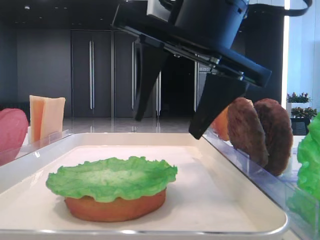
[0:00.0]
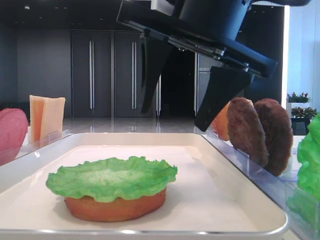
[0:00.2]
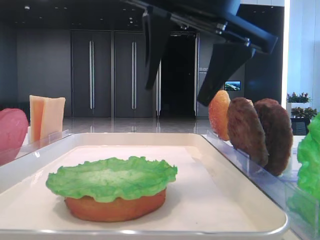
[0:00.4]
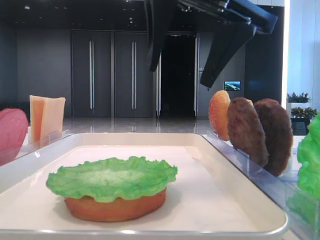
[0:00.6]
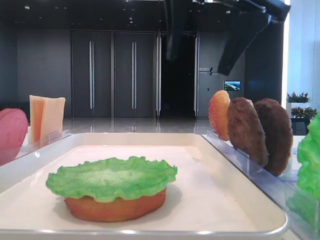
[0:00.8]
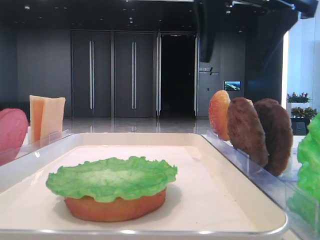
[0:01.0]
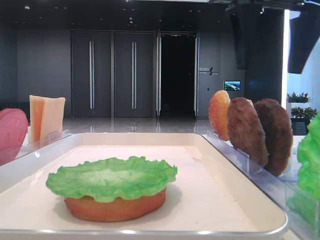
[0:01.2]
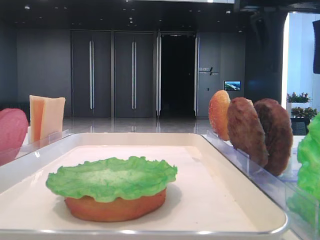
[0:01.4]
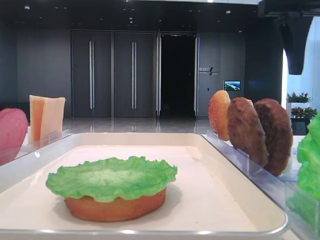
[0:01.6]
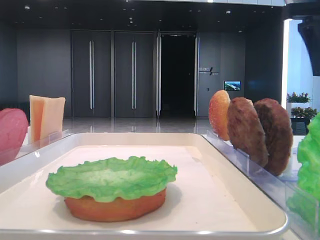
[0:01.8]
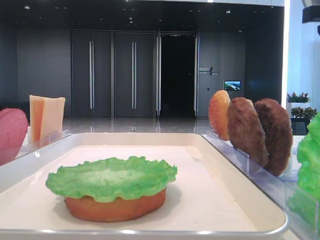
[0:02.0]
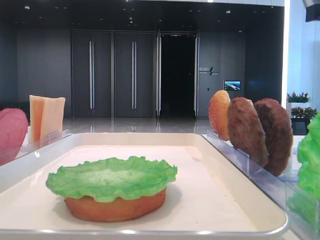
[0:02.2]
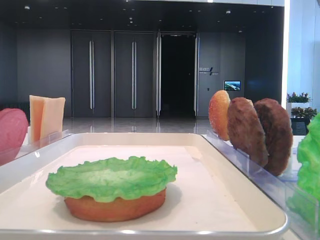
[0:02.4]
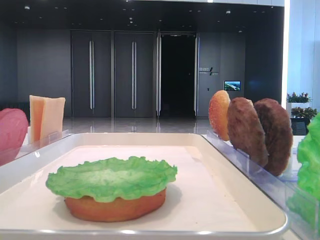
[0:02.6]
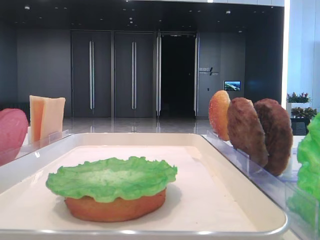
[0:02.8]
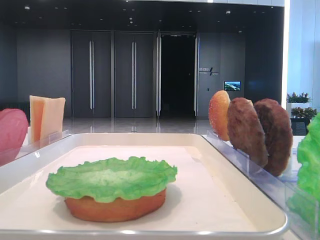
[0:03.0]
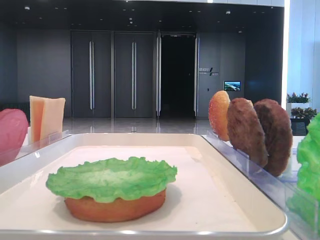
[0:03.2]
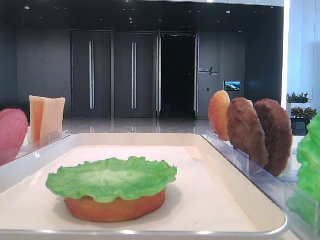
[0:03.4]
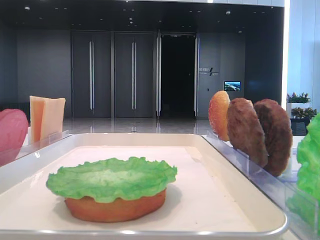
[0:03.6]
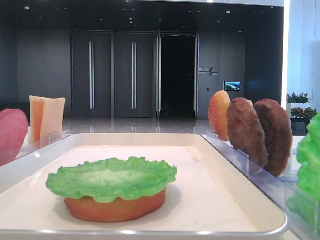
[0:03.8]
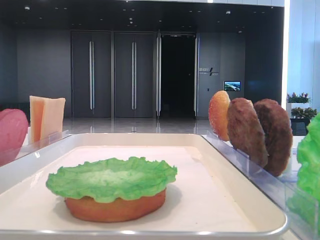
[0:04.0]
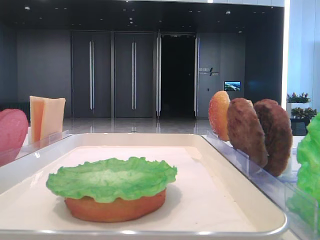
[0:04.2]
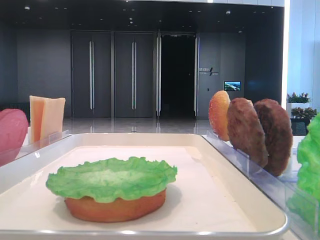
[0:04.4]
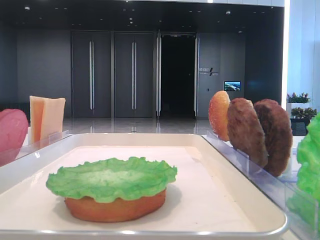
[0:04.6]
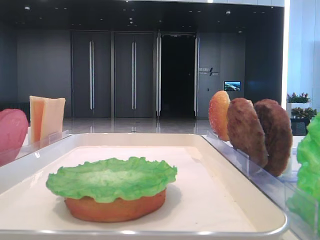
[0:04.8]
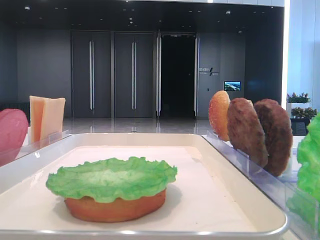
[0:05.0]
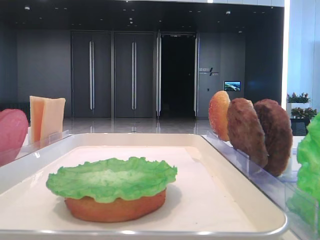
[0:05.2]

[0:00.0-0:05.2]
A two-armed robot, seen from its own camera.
0:00.0 to 0:01.8: The right gripper shifts some 20 cm to the right and forward.
0:01.8 to 0:03.4: The right gripper moves backward, some 25 cm.

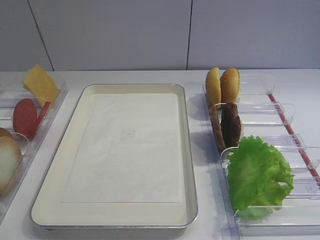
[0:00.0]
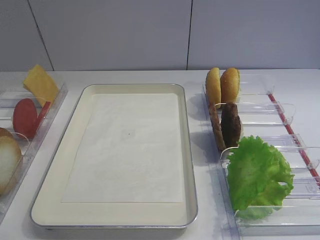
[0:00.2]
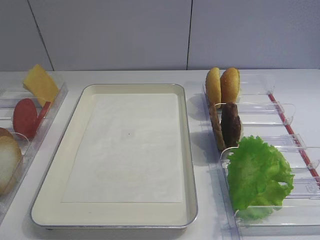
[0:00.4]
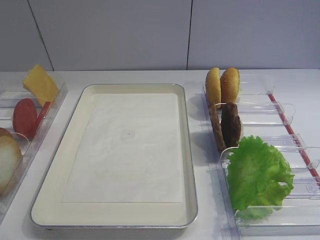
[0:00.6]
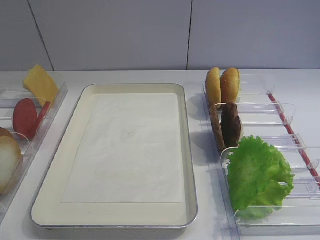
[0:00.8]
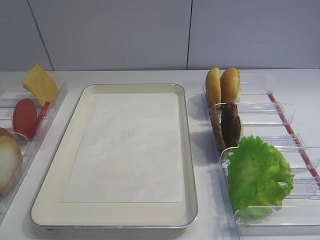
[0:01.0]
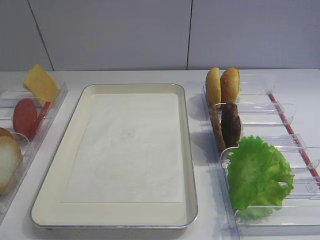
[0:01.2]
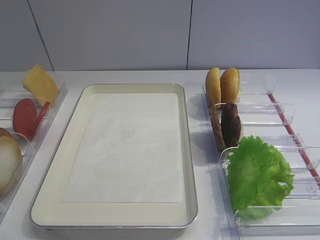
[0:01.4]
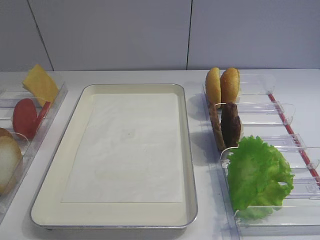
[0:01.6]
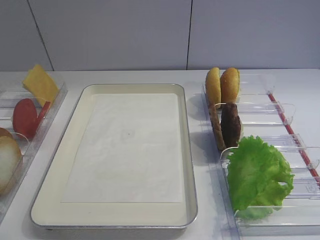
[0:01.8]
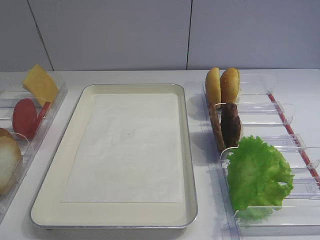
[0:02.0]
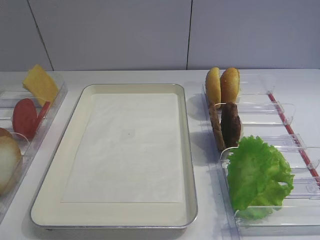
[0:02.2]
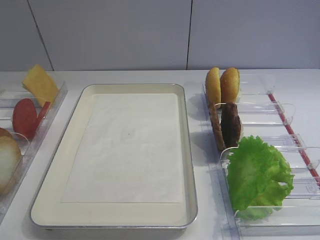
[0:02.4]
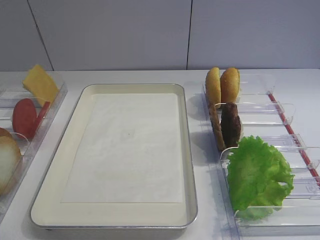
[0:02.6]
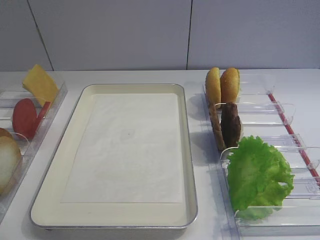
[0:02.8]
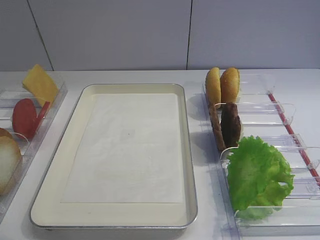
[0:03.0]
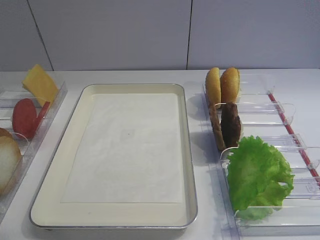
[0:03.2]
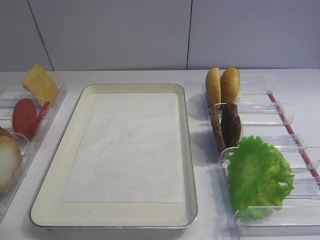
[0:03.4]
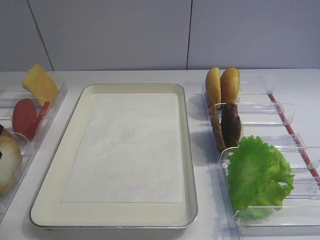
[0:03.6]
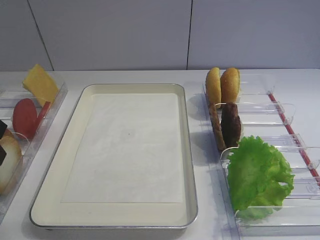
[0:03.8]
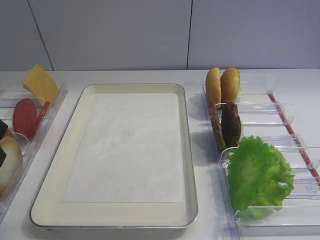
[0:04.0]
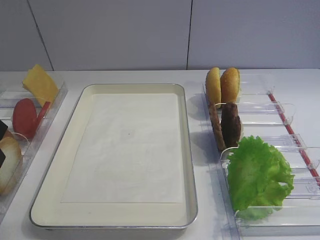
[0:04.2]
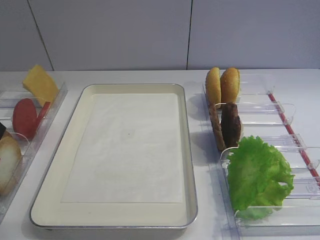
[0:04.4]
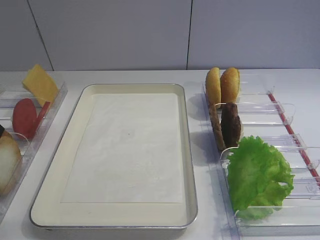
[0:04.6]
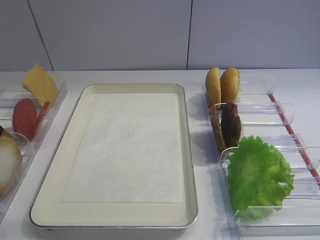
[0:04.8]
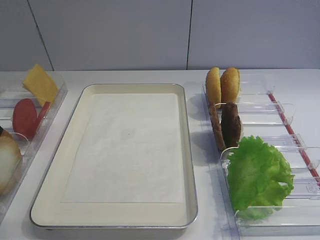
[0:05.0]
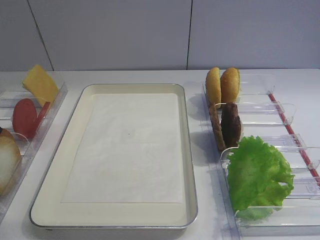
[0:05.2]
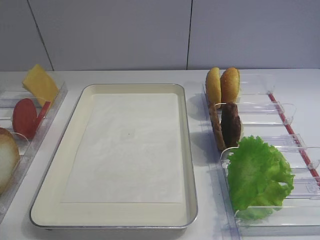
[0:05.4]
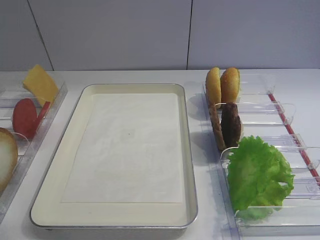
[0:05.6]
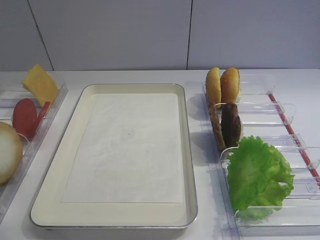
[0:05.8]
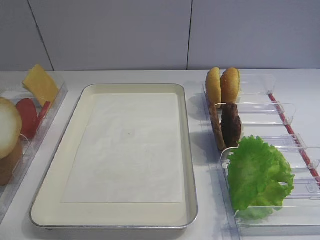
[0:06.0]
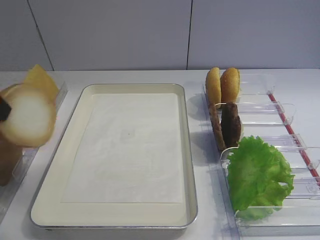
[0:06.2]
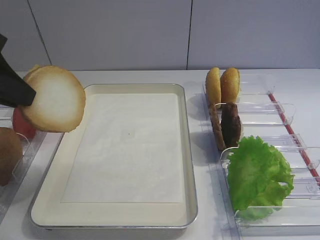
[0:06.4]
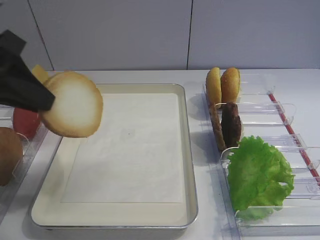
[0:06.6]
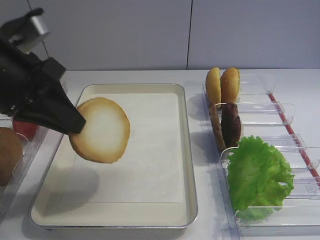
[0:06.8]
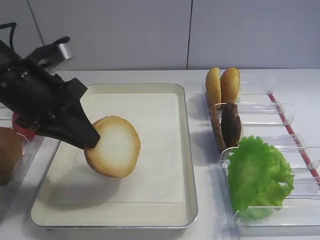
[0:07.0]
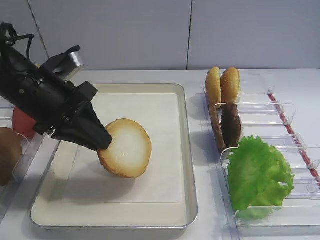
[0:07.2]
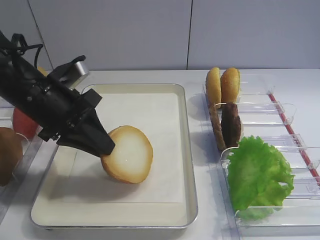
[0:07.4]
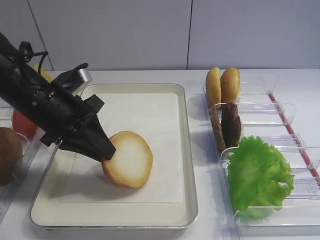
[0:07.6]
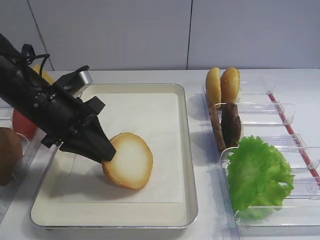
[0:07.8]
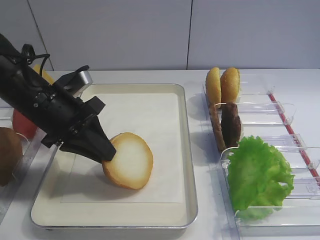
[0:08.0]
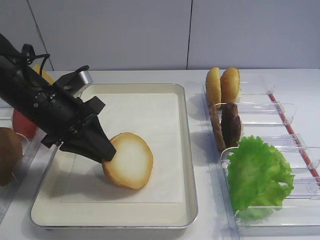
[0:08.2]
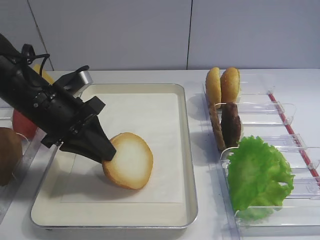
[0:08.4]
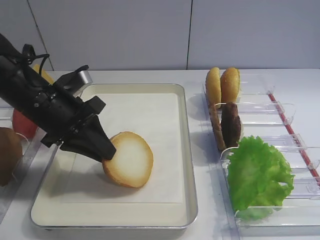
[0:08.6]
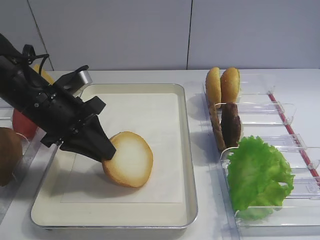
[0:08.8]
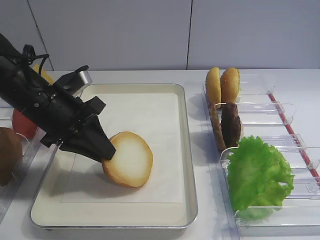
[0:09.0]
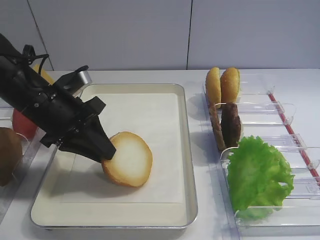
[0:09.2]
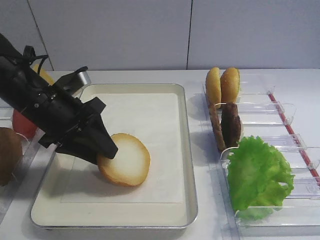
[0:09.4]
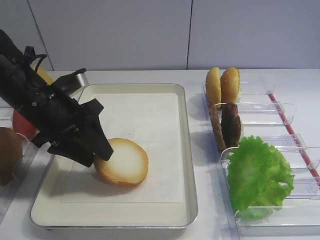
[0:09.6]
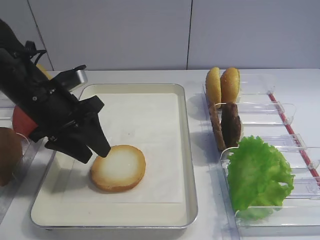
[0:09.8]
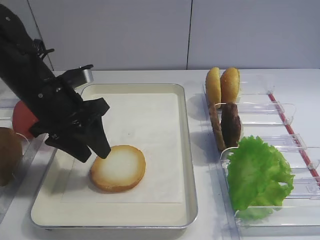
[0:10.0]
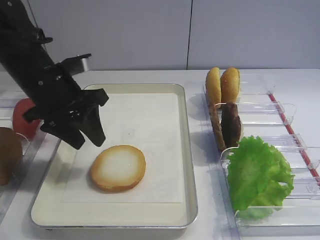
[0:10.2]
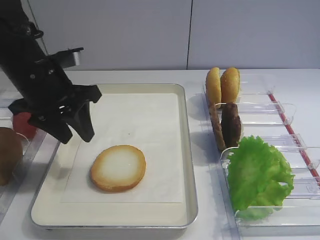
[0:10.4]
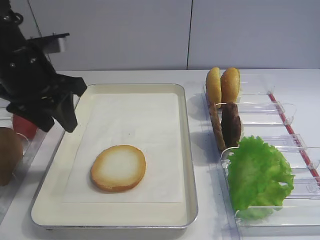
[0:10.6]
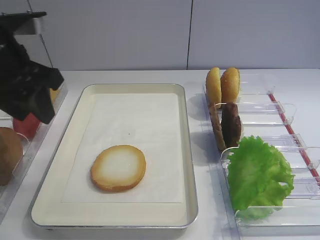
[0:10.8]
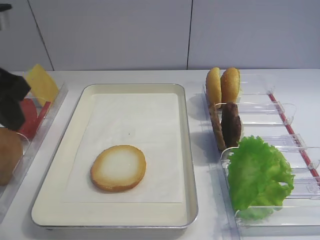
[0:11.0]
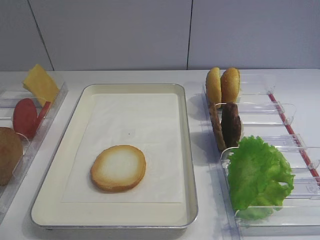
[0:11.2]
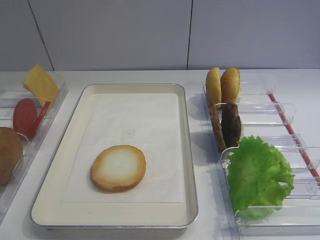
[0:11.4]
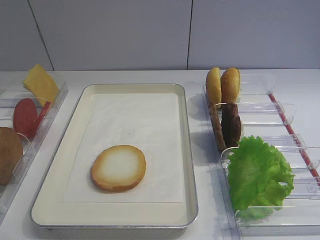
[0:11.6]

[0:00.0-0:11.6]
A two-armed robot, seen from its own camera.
Step, 0:00.0 to 0:06.0: Pick up the bread slice with the left gripper.
Step, 0:06.2 to 0:10.2: Place the bread slice on the tray with the left gripper.
0:04.4 to 0:05.8: The left gripper closes up.
0:05.8 to 0:07.2: The left gripper is displaced to the right, forward and downward by about 15 cm.
0:07.2 to 0:08.8: The grippers stay close to where they were, moving slightly.
0:08.8 to 0:10.2: The left gripper opens.
0:10.2 to 0:11.6: The left gripper shifts approximately 30 cm backward, upward and to the left.

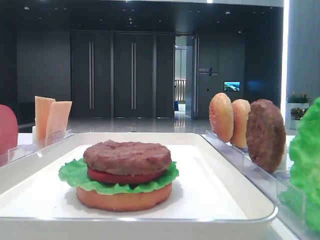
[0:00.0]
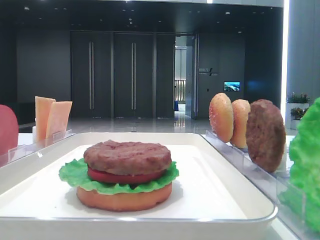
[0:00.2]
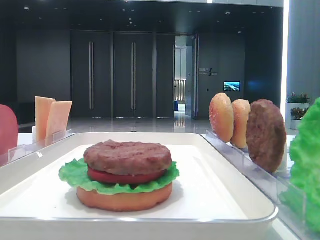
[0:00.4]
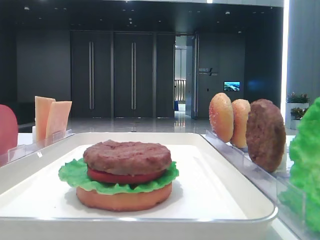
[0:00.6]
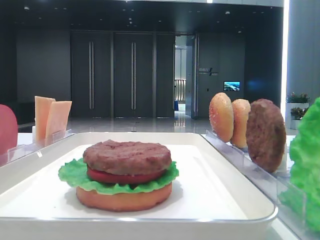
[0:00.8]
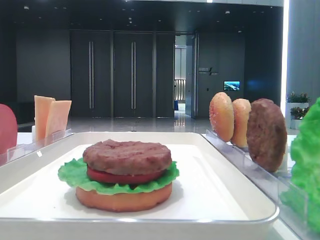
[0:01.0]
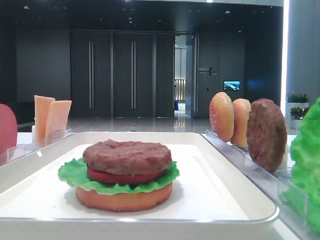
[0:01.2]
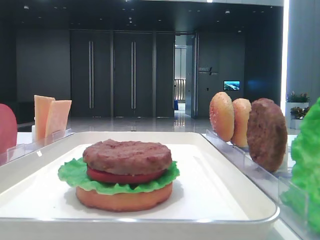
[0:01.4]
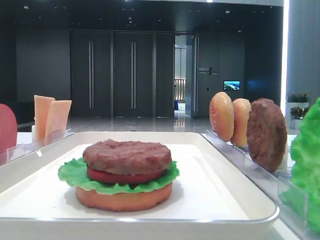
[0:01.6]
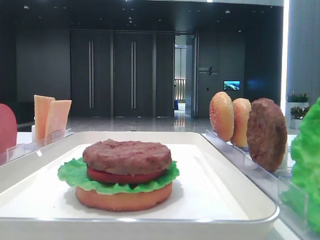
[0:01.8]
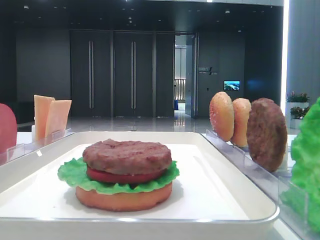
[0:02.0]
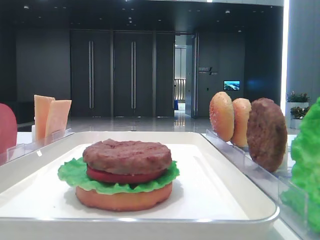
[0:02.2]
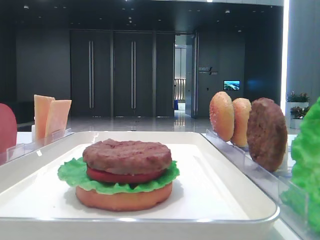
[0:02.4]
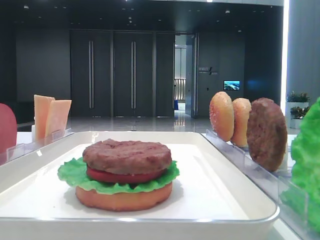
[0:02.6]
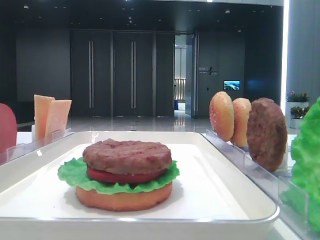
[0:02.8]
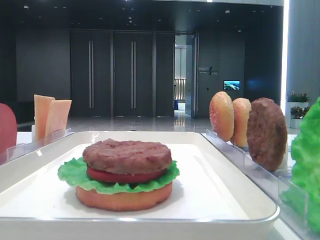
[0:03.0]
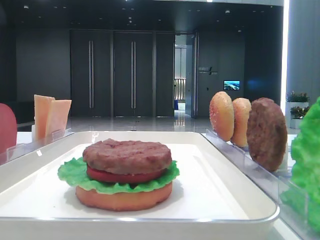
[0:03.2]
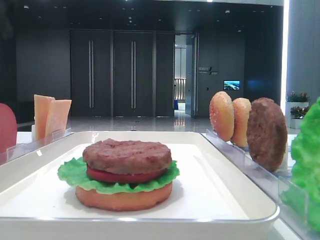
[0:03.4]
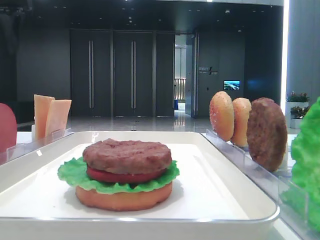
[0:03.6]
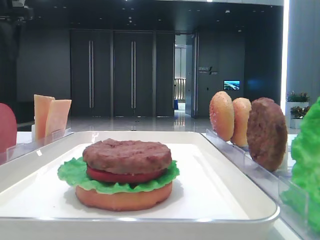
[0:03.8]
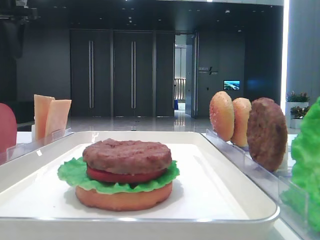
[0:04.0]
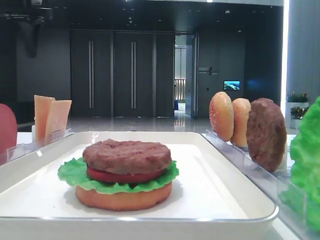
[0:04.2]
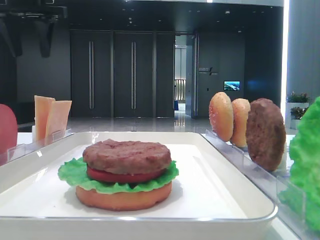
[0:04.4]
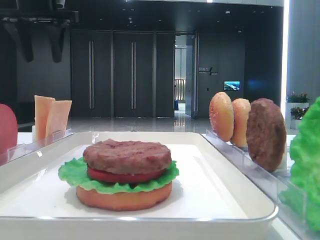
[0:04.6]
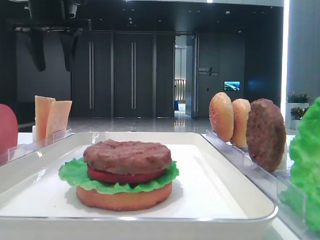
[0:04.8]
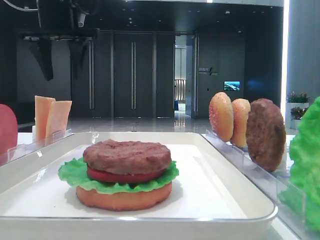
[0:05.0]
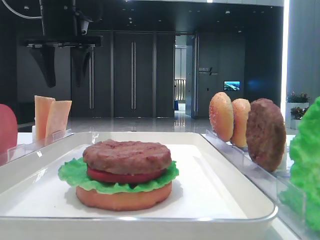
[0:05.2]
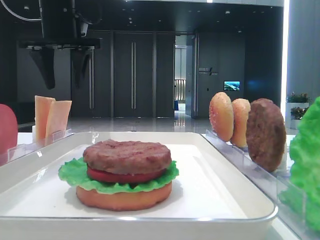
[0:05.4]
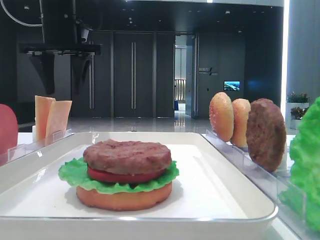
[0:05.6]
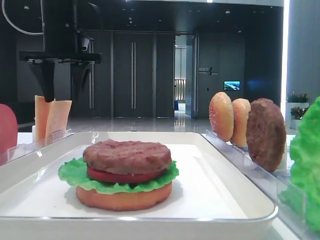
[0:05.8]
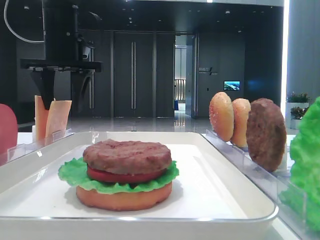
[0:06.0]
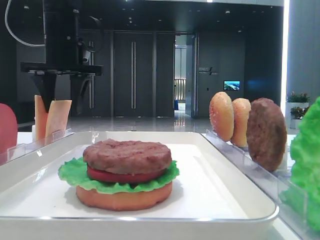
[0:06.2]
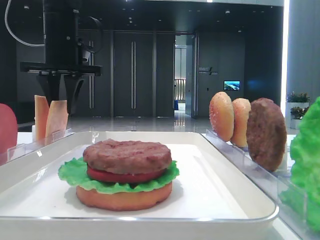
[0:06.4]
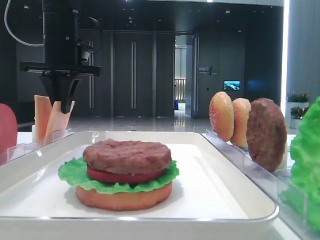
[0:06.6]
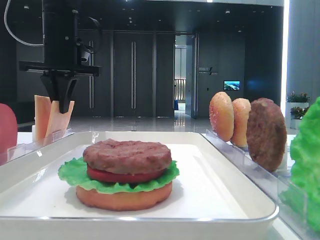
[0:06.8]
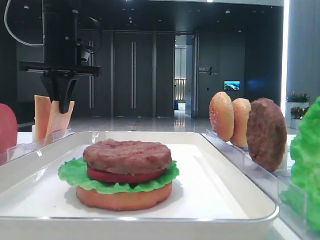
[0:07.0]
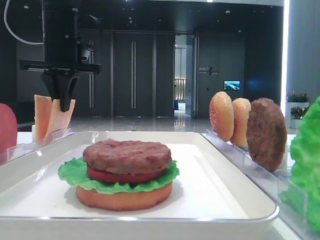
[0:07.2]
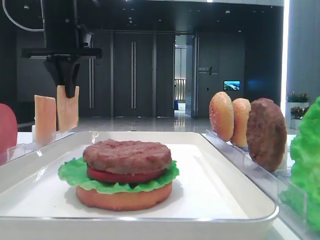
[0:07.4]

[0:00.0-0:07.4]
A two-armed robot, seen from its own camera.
Step, 0:00.0 to 0:07.0: Pick up the cheese slice with the left hand.
0:03.0 to 0:04.4: The left gripper shifts roughly 10 cm forward, downward and to the right.
0:04.4 to 0:06.0: The left gripper goes approximately 10 cm downward and to the right.
0:06.0 to 0:07.4: The left gripper closes.
